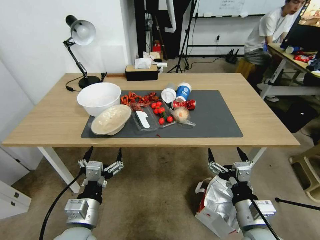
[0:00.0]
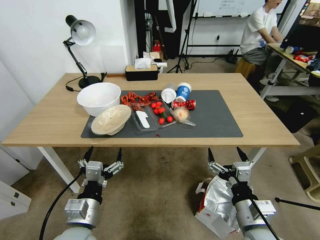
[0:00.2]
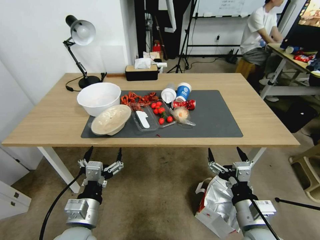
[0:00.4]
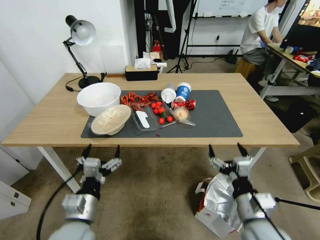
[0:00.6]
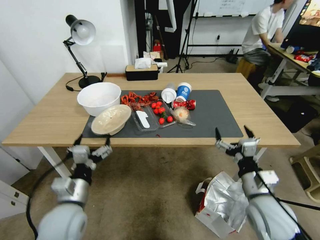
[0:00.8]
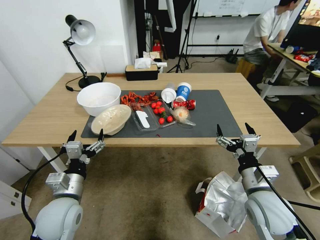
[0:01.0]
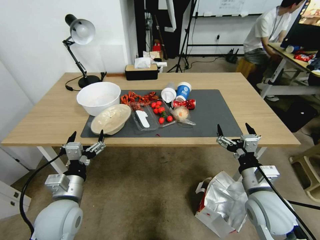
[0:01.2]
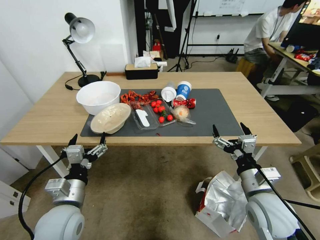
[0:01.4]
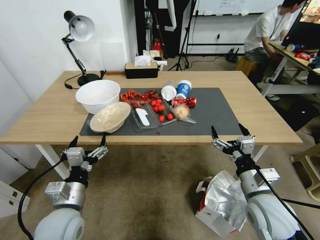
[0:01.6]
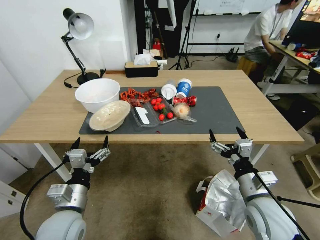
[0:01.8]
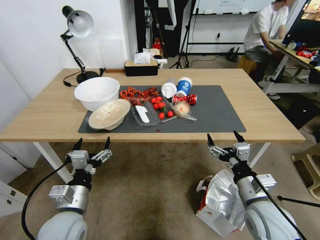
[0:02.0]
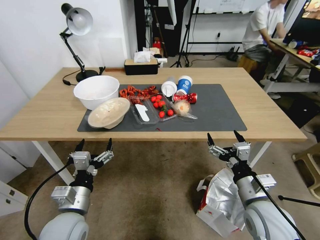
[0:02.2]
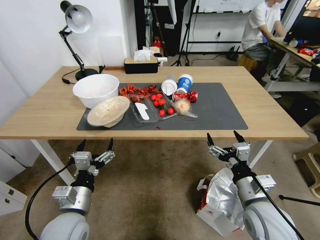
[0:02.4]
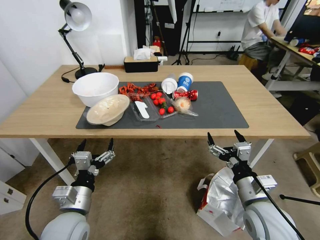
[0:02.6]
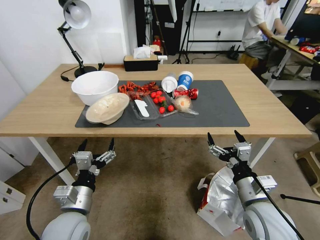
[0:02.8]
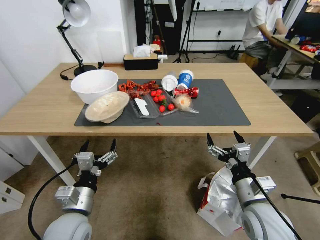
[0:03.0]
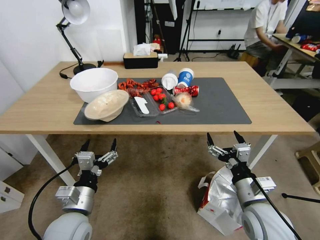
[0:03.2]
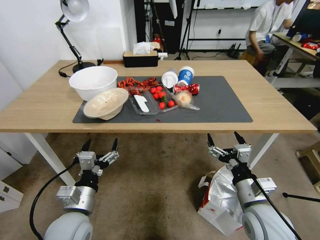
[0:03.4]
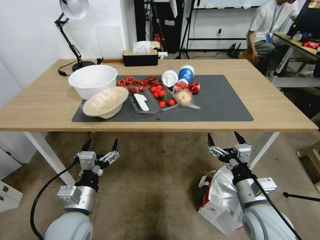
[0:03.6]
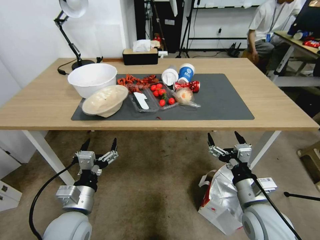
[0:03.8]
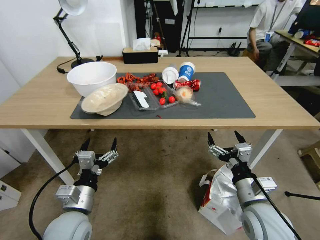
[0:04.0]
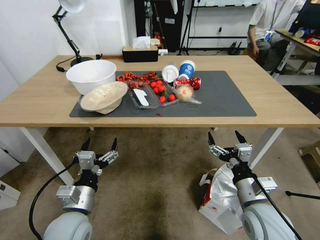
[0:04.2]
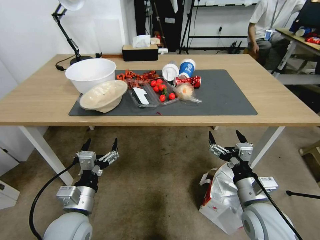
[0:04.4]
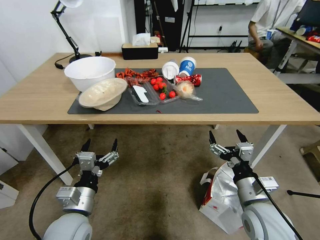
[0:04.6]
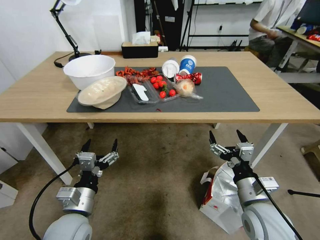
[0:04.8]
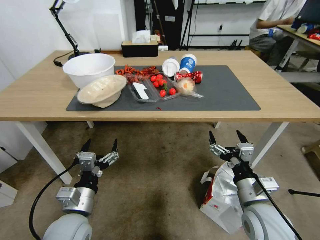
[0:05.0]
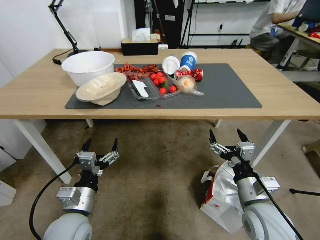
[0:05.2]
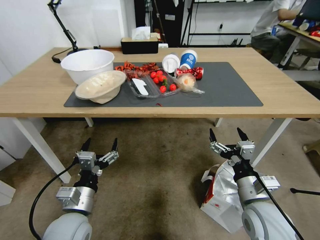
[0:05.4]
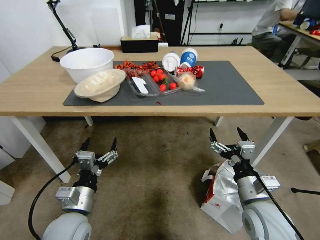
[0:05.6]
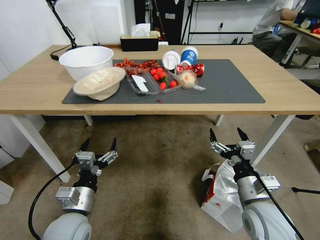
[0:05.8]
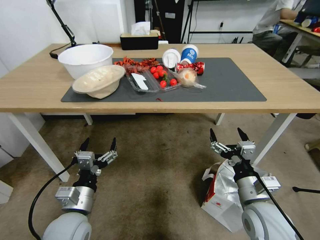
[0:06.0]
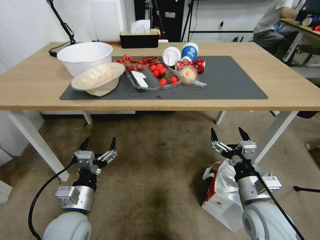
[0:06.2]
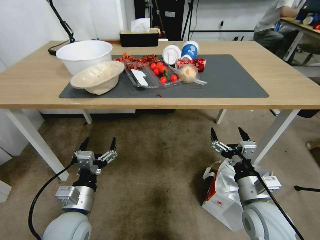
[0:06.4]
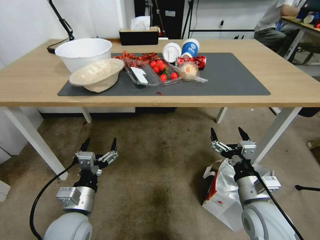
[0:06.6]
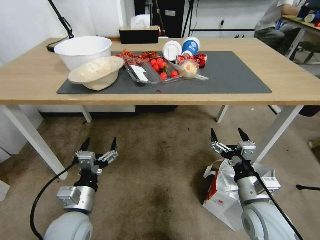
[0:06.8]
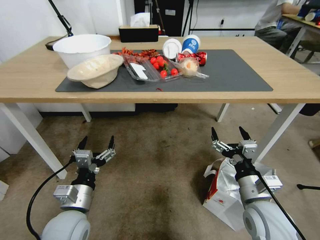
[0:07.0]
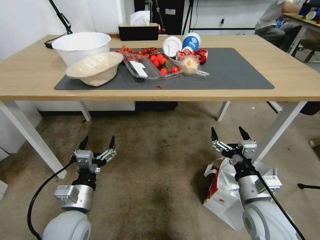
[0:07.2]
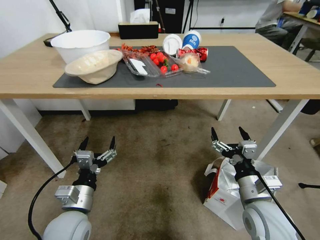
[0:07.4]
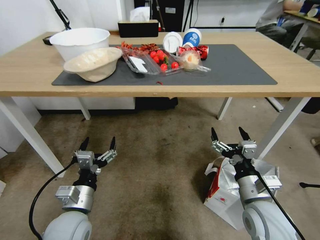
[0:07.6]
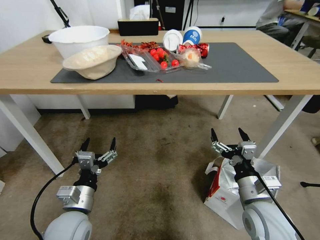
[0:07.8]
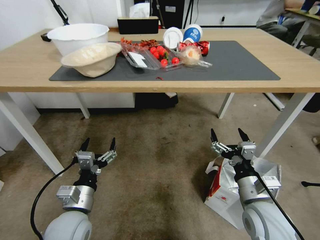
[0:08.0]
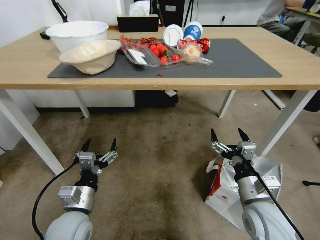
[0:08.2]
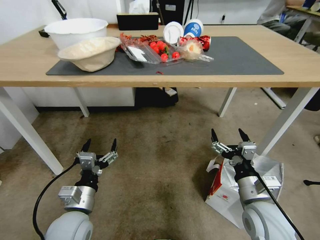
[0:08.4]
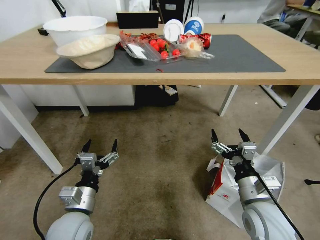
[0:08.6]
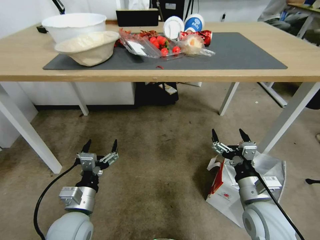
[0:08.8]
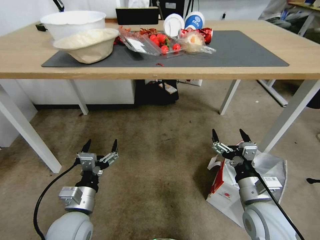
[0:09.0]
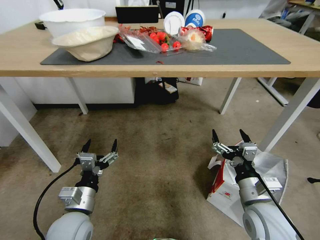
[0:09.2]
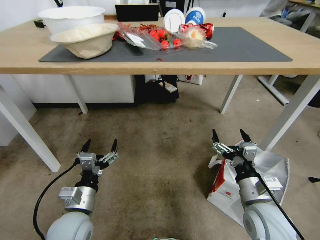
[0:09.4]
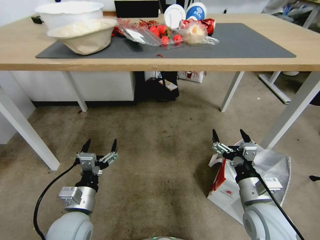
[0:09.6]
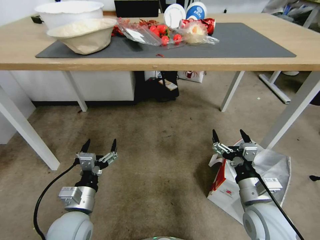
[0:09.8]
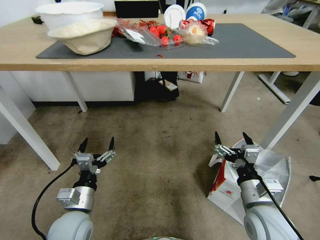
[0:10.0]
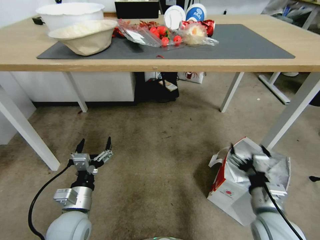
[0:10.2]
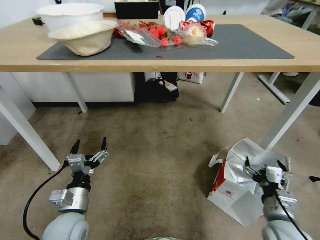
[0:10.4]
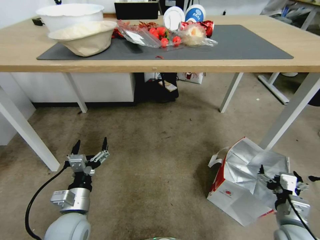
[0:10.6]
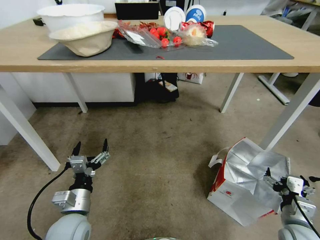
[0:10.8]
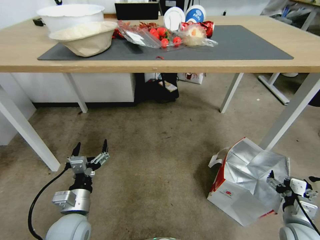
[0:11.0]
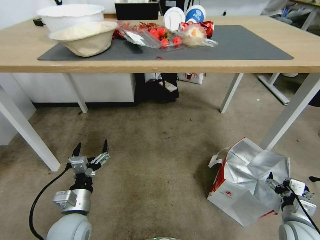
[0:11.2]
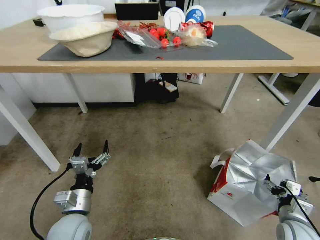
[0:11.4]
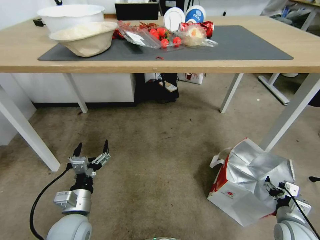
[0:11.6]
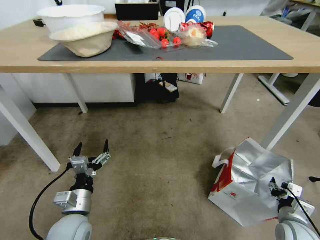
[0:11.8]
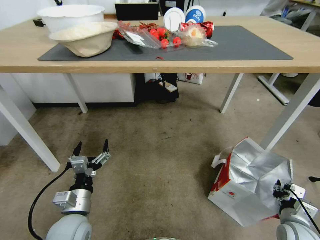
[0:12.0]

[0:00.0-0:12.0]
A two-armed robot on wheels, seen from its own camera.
Task of the whole recording: Pick up the food delivery bag from the floor and place it on the table.
0:09.0 to 0:10.4: The right gripper moves roughly 5 cm.
0:10.4 to 0:12.0: The right gripper shifts about 10 cm to the right and downward, and closes.

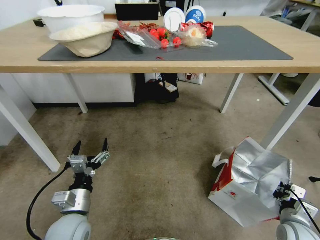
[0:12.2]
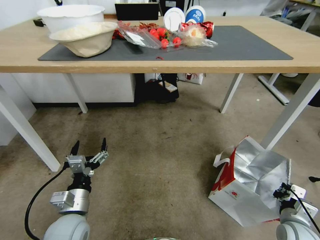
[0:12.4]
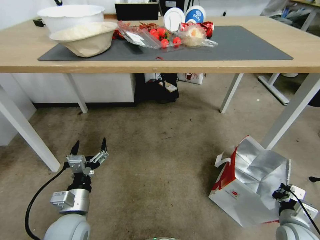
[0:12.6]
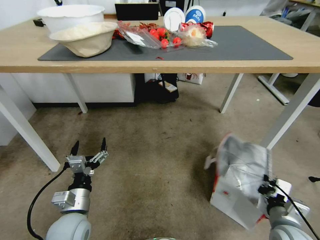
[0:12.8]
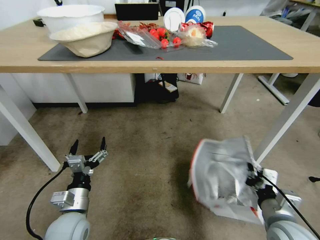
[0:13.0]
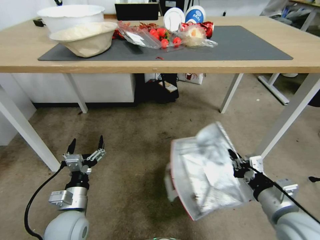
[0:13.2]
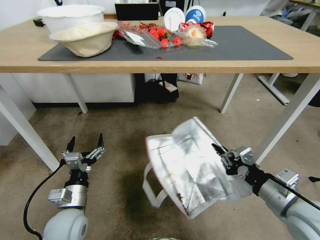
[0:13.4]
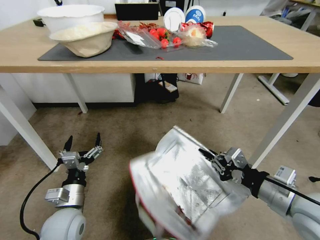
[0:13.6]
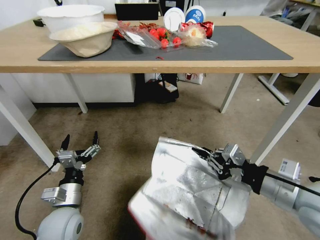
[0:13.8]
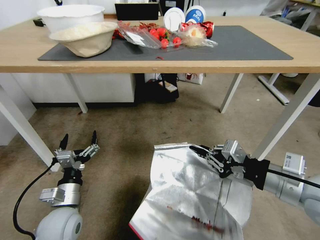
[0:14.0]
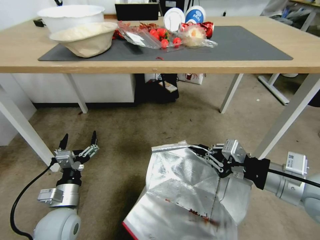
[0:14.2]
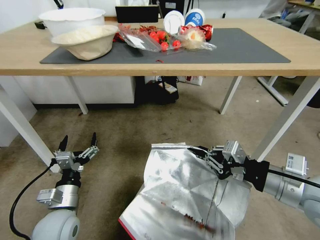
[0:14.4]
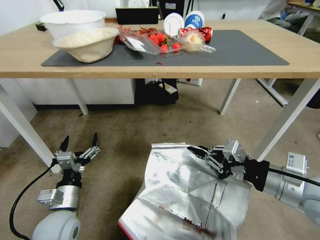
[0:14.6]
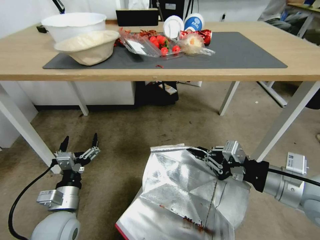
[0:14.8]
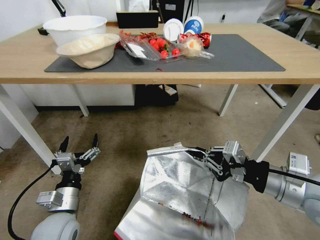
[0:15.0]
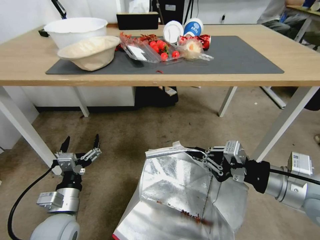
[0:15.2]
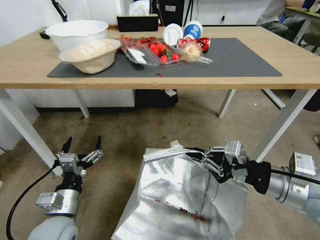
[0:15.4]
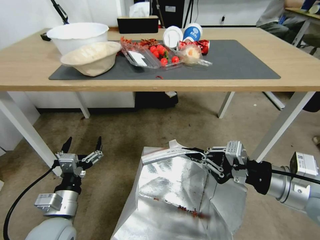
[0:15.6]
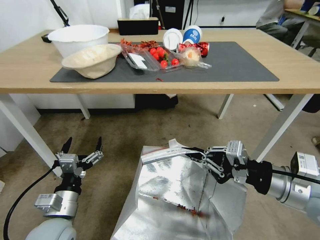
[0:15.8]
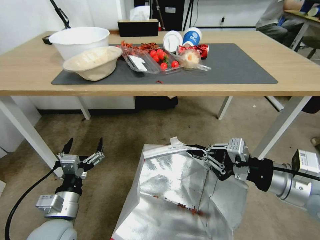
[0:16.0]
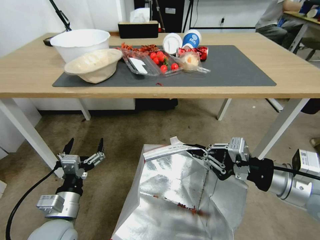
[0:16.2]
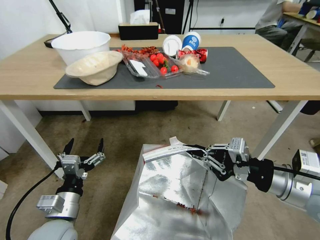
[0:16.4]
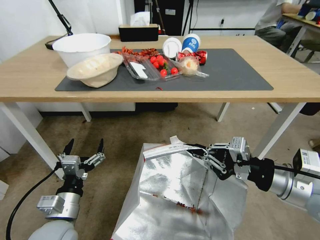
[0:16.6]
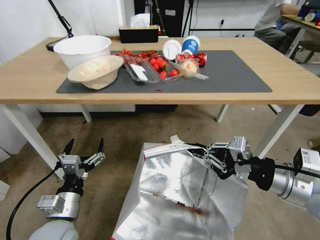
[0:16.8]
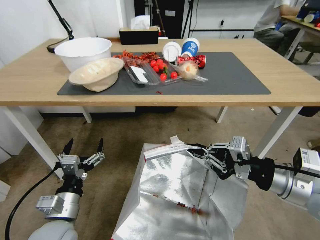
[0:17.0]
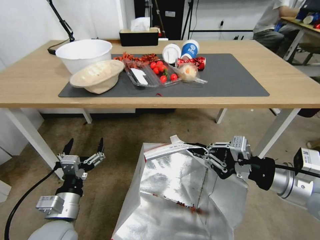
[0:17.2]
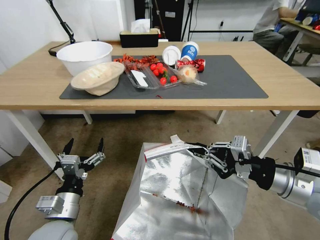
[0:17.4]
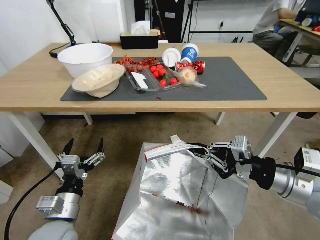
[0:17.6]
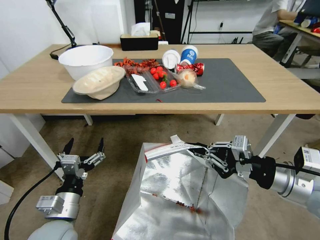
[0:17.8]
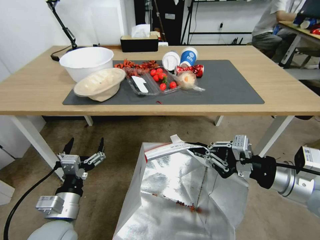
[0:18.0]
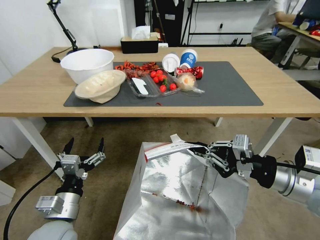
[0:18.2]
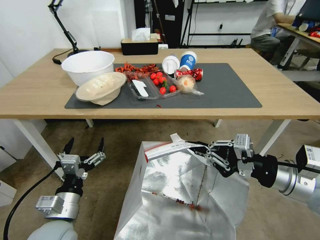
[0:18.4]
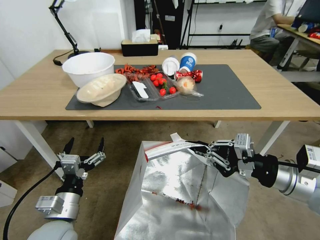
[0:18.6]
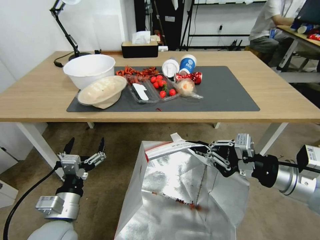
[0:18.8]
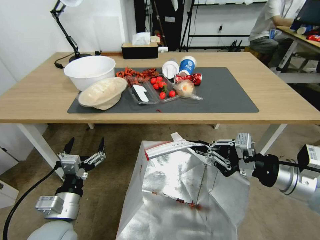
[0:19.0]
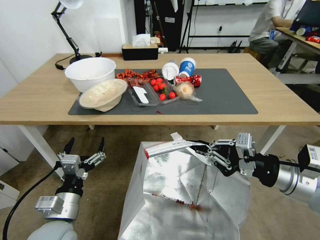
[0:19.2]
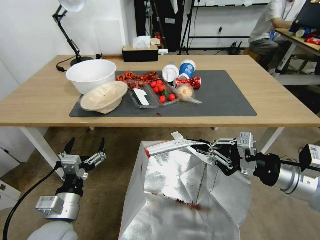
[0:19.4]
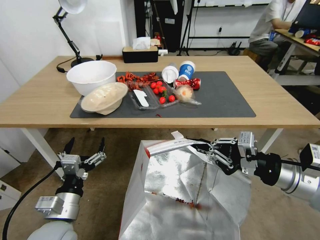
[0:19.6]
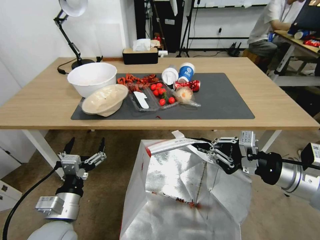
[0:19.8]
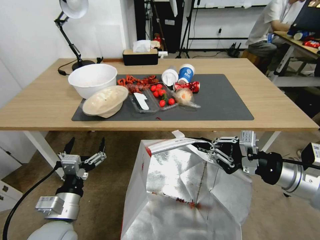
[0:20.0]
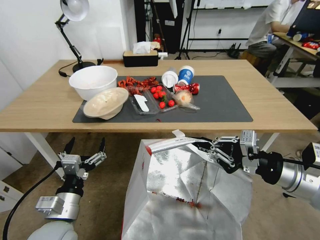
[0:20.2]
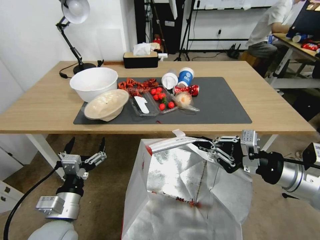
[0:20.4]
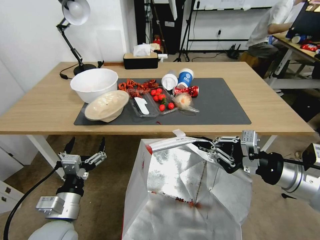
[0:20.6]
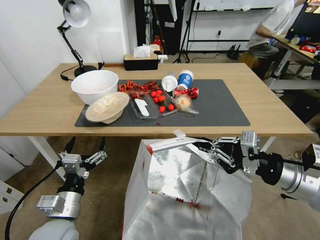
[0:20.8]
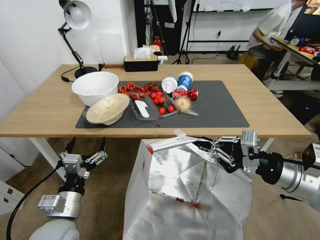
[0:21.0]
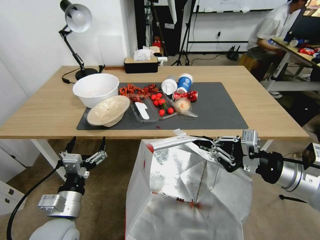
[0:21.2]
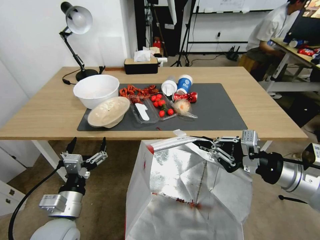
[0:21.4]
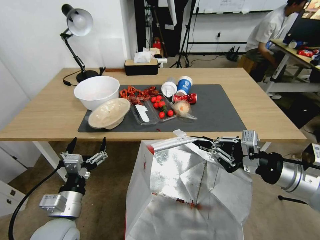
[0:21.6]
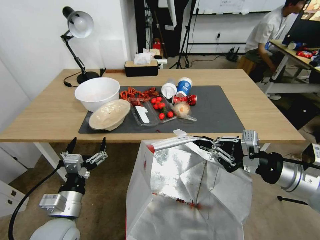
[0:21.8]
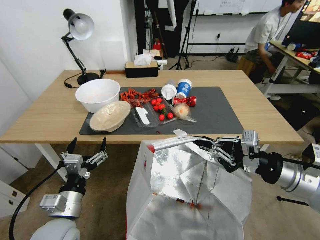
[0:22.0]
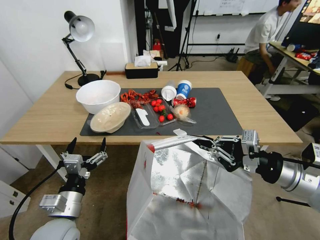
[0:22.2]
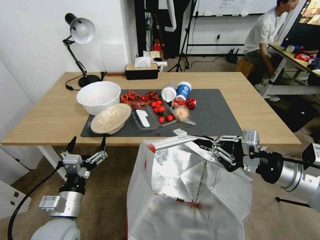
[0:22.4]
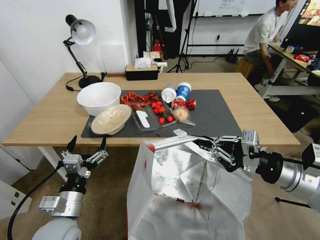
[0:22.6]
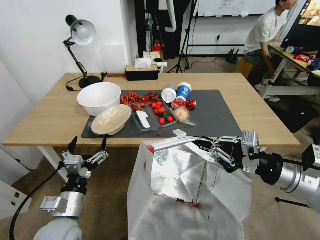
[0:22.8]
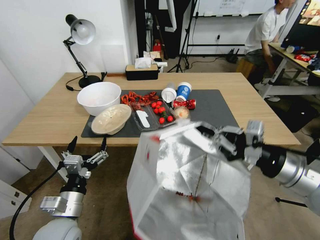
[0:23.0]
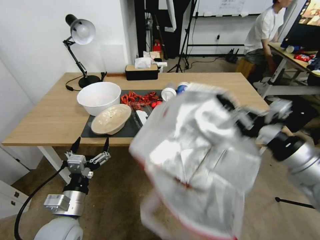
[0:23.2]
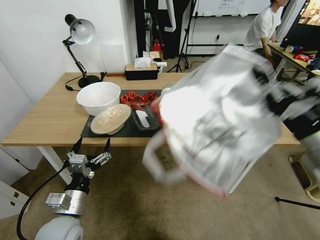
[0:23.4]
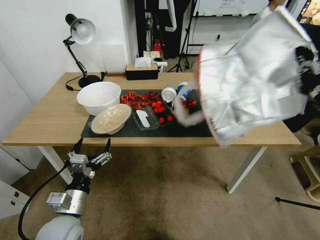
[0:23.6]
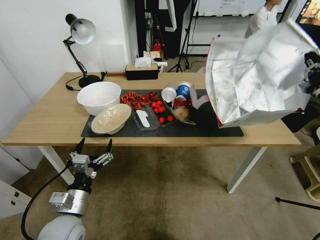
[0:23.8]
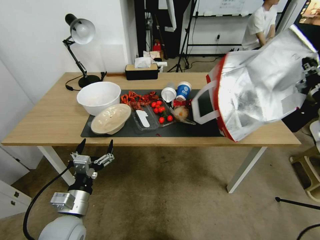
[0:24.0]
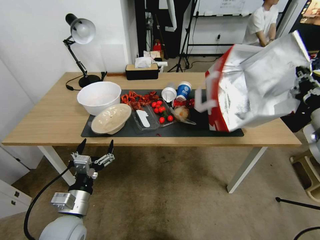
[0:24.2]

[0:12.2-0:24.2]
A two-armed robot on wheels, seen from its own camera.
Task of the whole recording: Pick up the food delivery bag from the floor and place it on the table.
0:12.2 to 0:13.8: The right gripper is displaced upward by some 25 cm.
0:22.6 to 0:24.2: The right gripper shifts some 10 cm forward and to the right.
